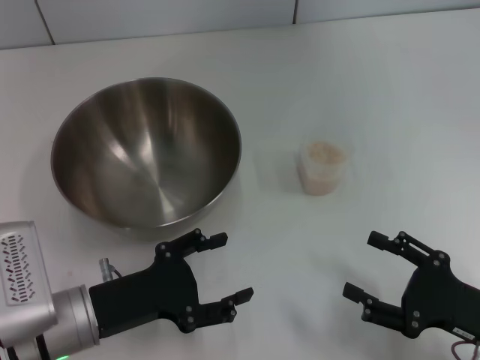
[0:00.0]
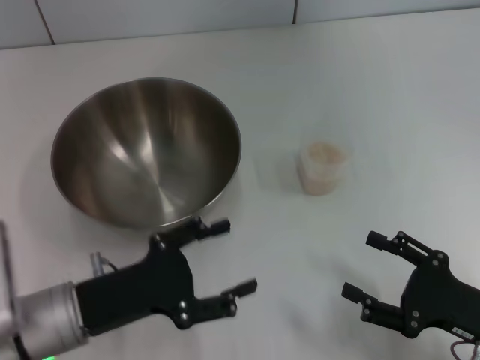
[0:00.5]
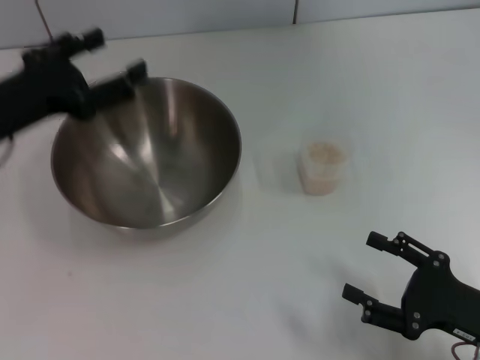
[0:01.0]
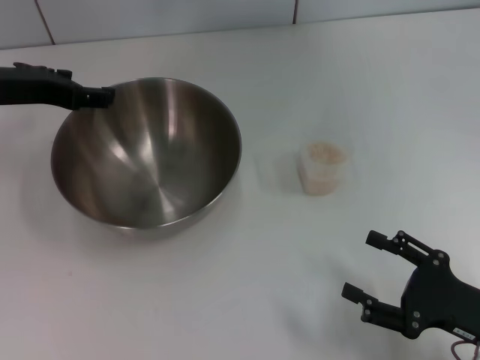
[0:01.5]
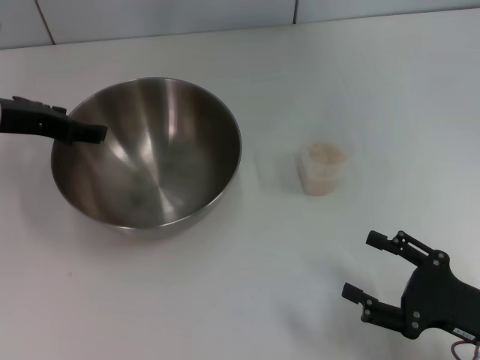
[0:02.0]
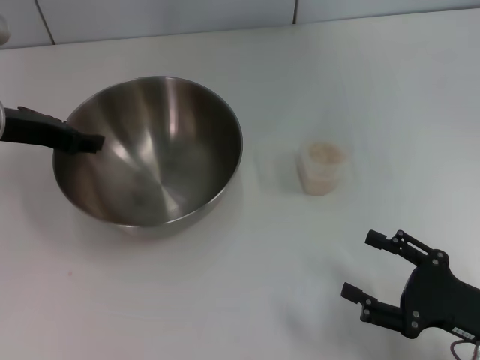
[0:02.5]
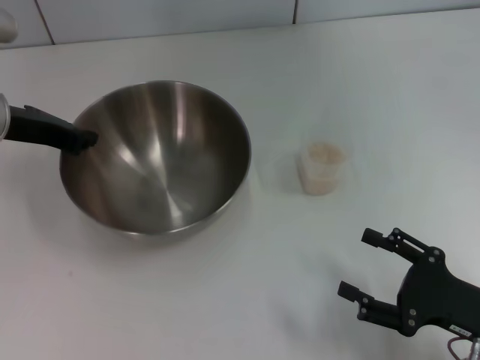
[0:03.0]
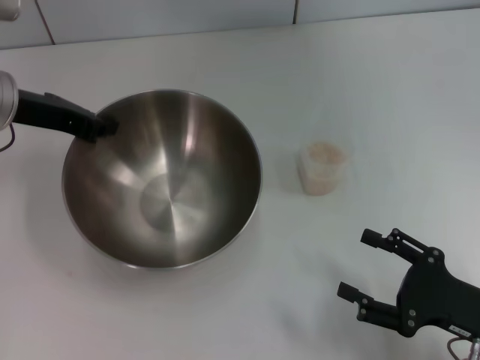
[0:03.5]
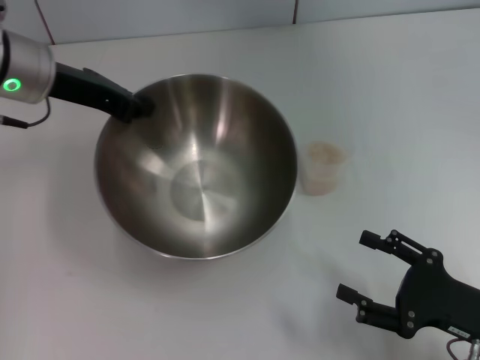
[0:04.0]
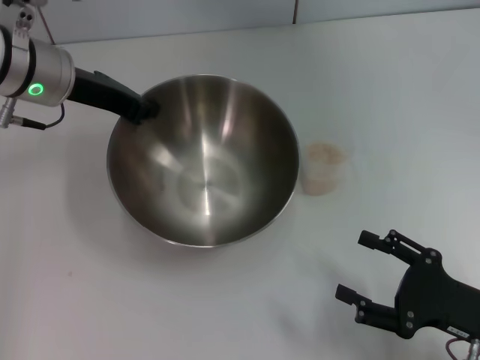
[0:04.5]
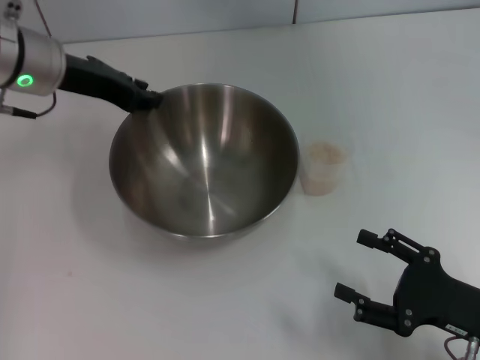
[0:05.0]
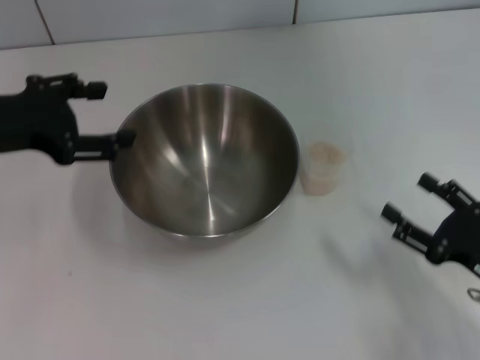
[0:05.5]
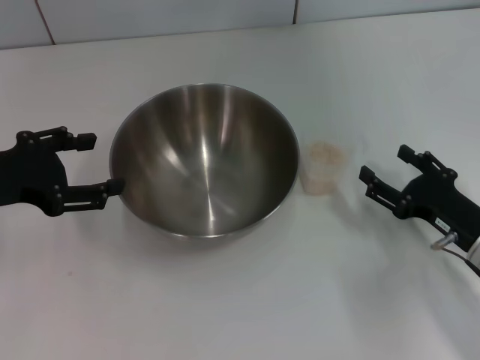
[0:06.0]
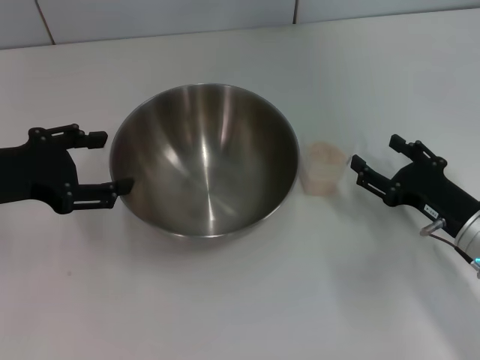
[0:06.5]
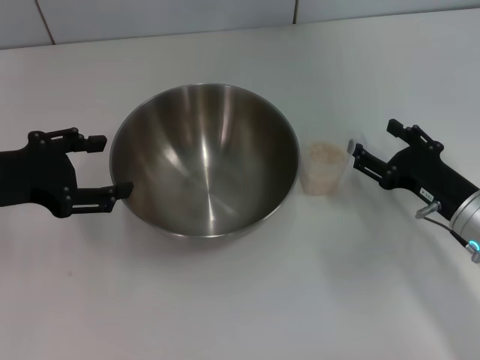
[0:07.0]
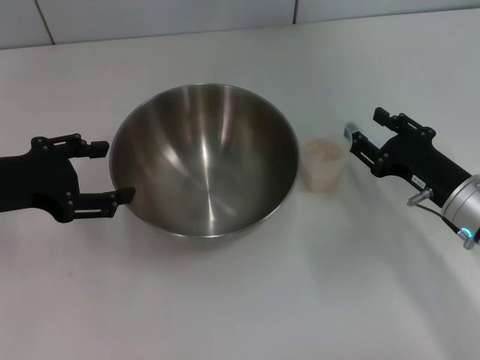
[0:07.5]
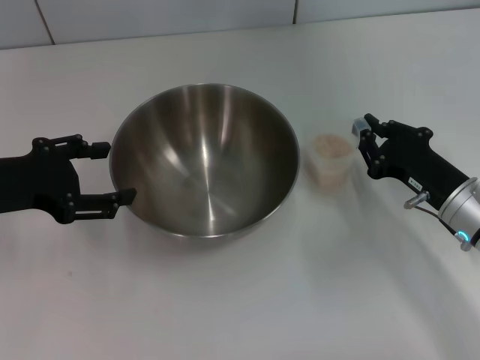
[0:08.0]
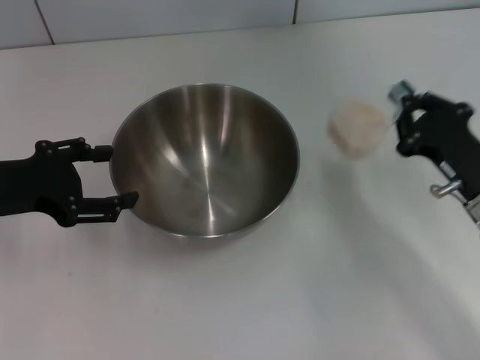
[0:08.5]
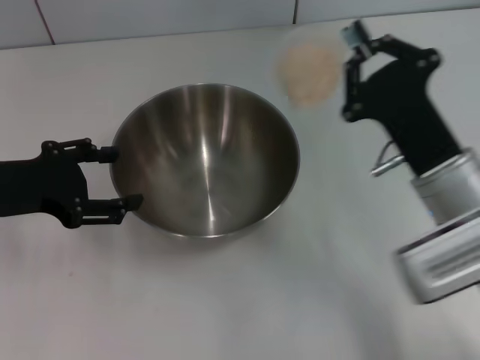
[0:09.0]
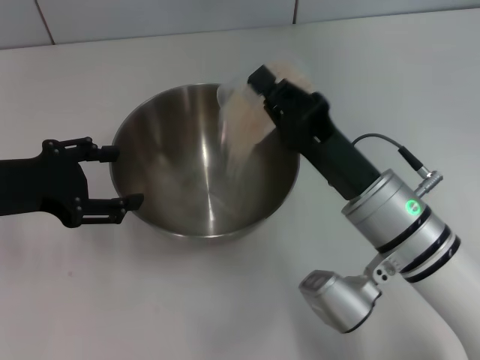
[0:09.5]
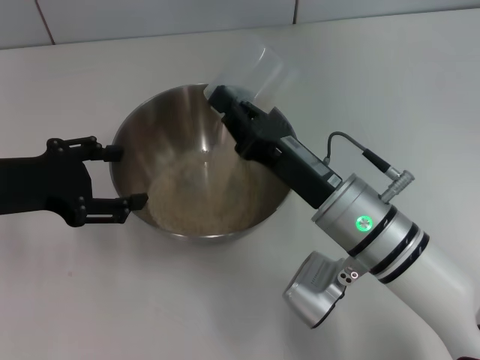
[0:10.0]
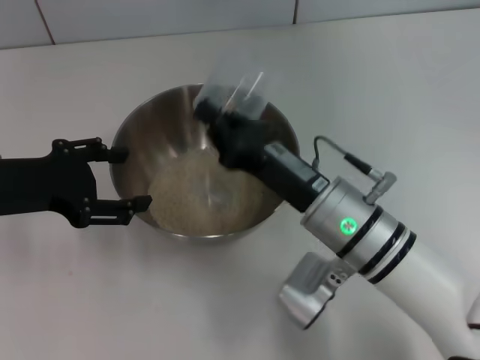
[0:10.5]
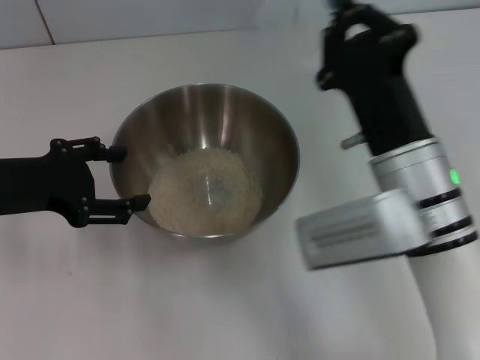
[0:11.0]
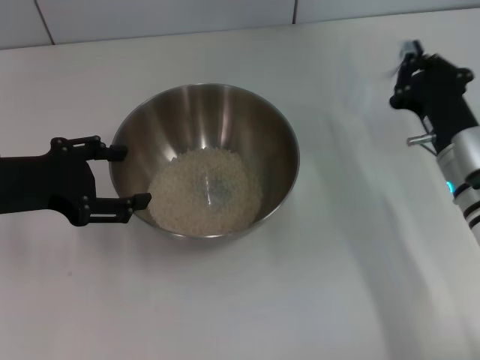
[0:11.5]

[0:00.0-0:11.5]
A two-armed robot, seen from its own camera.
Task of the whole recording: Place the bowl in the middle of the table with one hand and pour the rice from the grain cup into it with the other hand.
Step, 0:00.0 to 0:03.0: Pick up the bowl with the left gripper.
Step, 0:04.0 to 0:05.5: Place the bowl in the center of view with the left gripper.
Step, 0:06.0 to 0:08.5: Pick up the cup with rice in it with the right gripper.
Step, 0:09.0 to 0:11.0: Pour the rice from the cup into the bowl with the right gripper.
0:00.0 to 0:02.0: The left gripper moves forward and upward, about 20 cm.
0:02.0 to 0:04.0: The left gripper moves about 5 cm, and closes its fingers.
0:04.0 to 0:06.0: The left gripper is displaced backward and to the left by roughly 15 cm, and opens its fingers. Meanwhile the right gripper moves forward, about 10 cm.
0:06.0 to 0:07.5: The right gripper changes place by approximately 5 cm.
0:07.5 to 0:09.5: The right gripper heads to the left and upward, covering roughly 15 cm, and closes.
0:09.5 to 0:11.5: The right gripper heads to the right, covering about 10 cm.

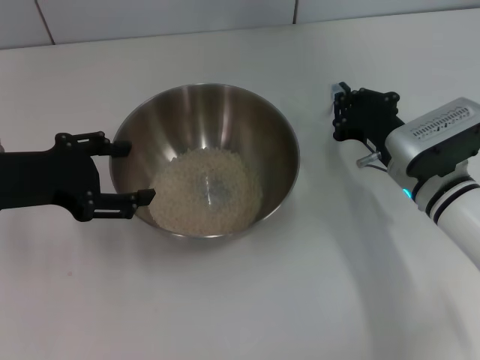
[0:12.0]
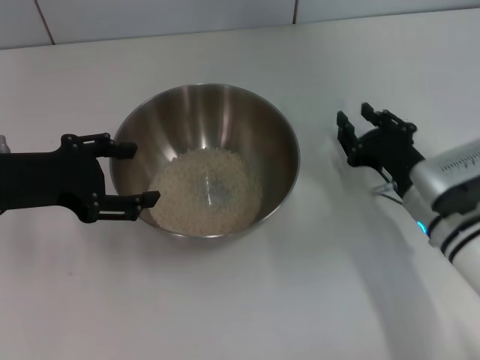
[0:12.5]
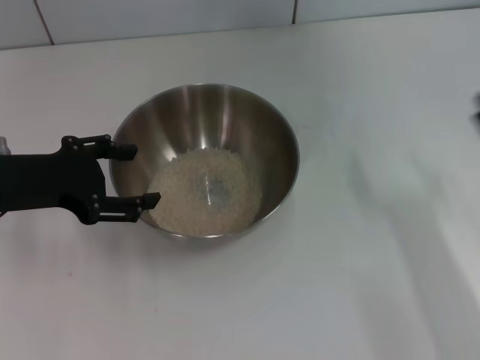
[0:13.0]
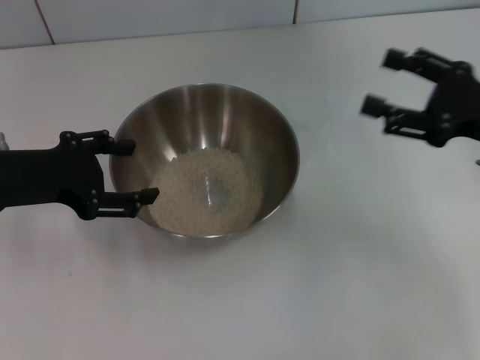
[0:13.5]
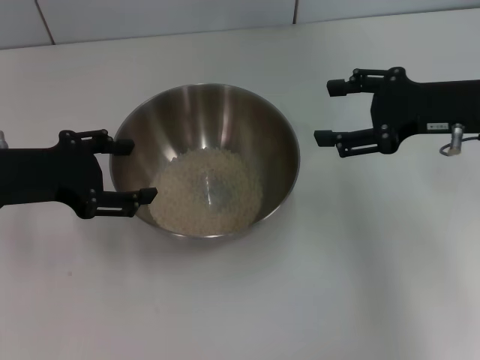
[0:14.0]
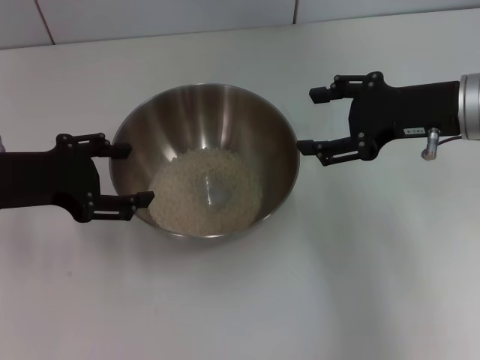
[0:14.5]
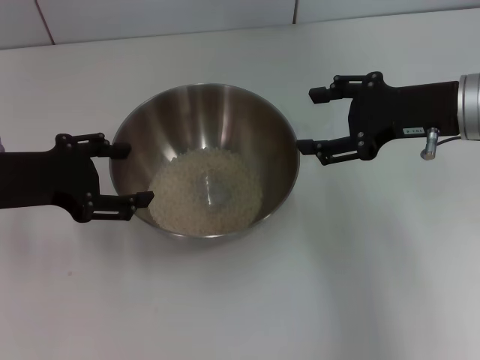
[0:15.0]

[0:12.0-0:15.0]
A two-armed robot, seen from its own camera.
Task of the whole recording: Place the bowl in the middle of the table with one hand and pour the rice from the grain cup into it with the other hand.
Step, 0:12.0 to 0:13.5: Place the cup on the table with the right gripper.
0:12.0 to 0:13.5: The right gripper travels upward and to the right by about 15 cm, and opens up.
0:13.5 to 0:15.0: The right gripper shifts roughly 5 cm to the left.
